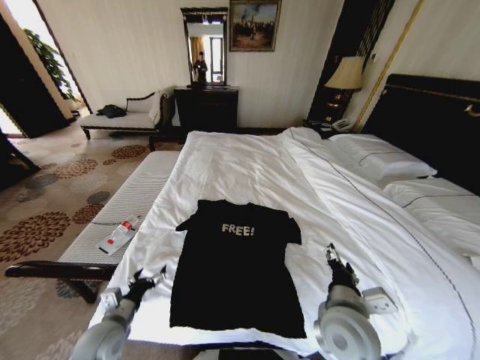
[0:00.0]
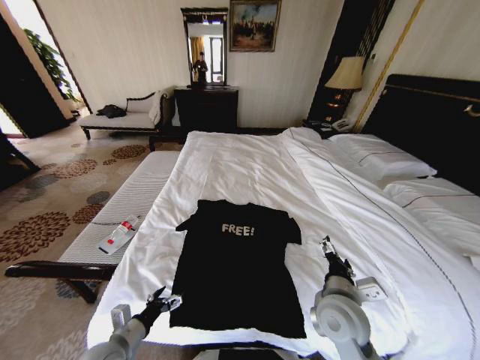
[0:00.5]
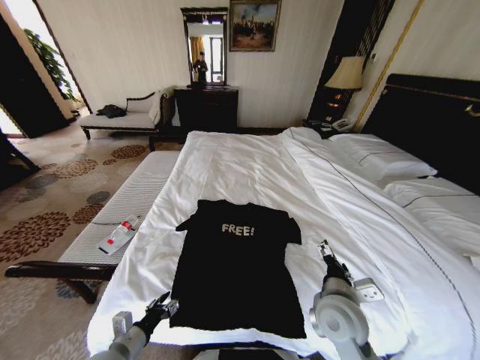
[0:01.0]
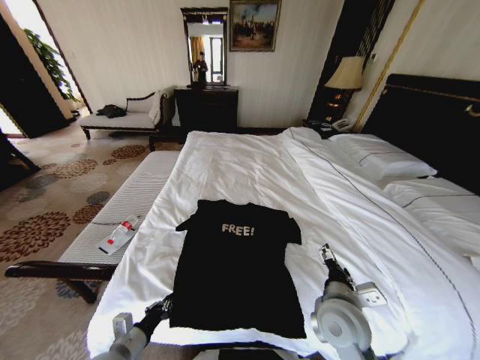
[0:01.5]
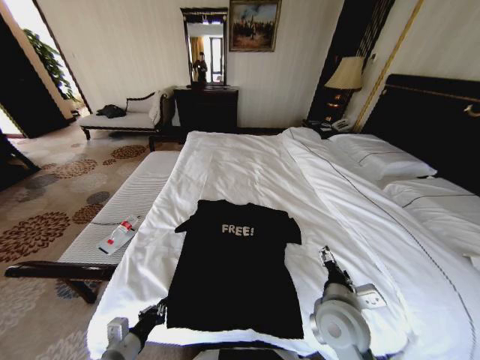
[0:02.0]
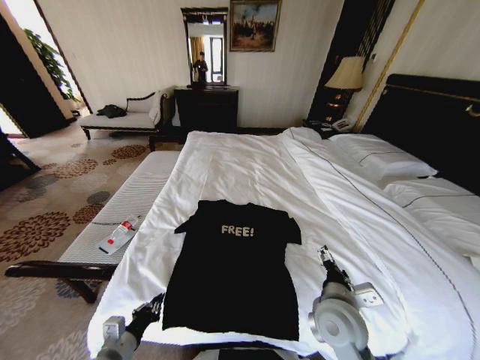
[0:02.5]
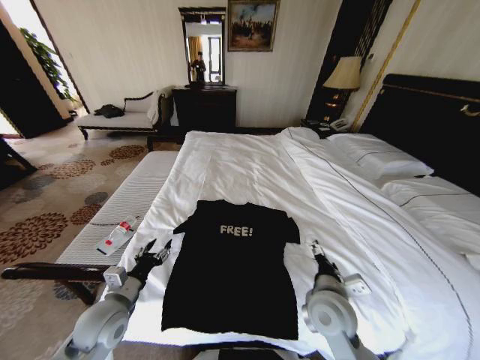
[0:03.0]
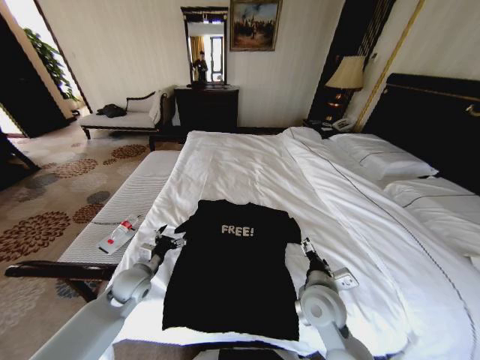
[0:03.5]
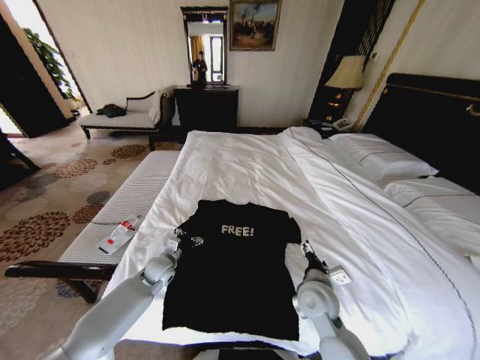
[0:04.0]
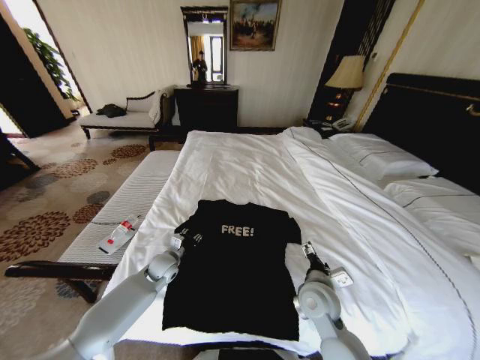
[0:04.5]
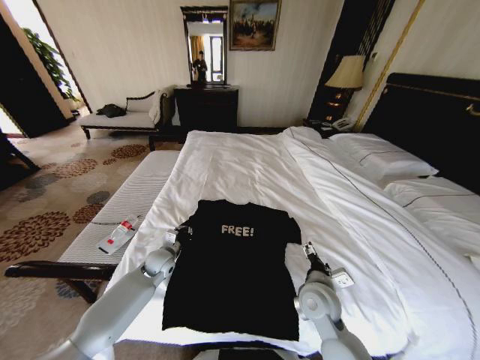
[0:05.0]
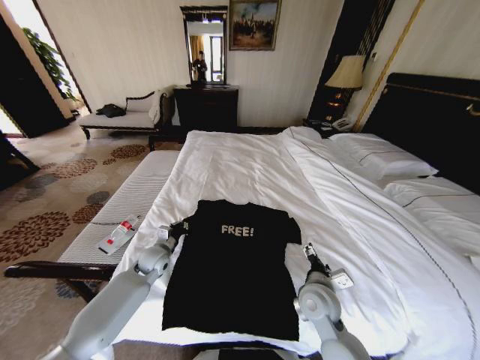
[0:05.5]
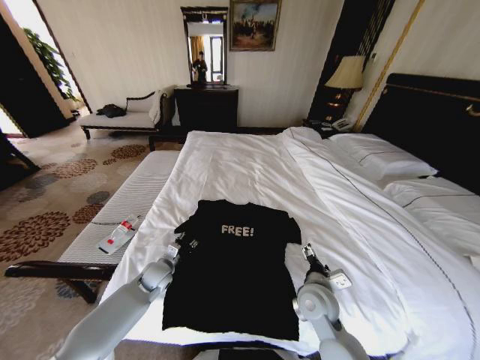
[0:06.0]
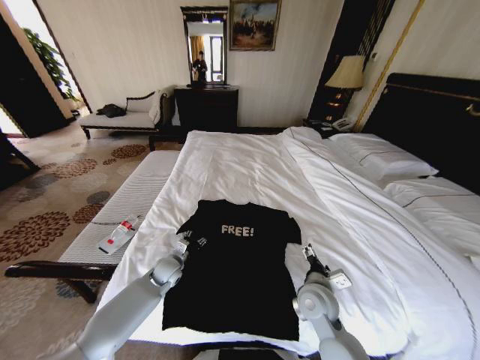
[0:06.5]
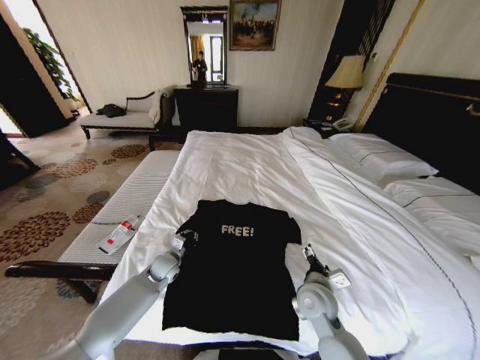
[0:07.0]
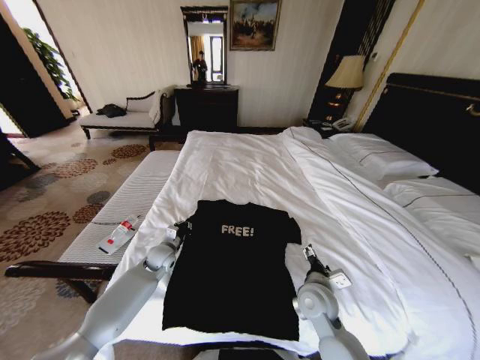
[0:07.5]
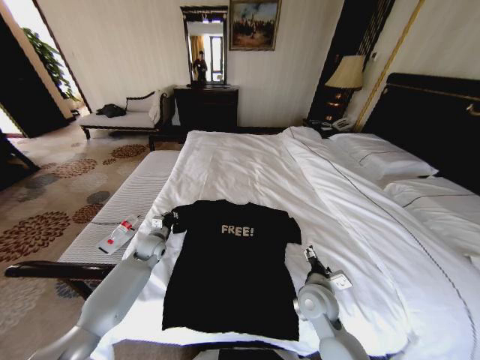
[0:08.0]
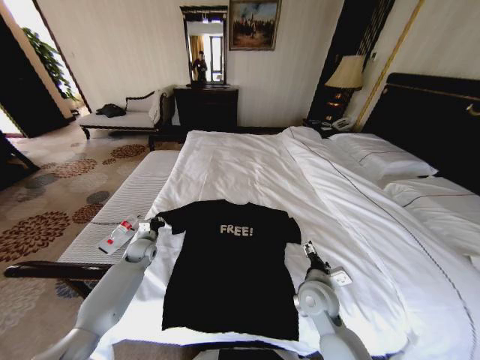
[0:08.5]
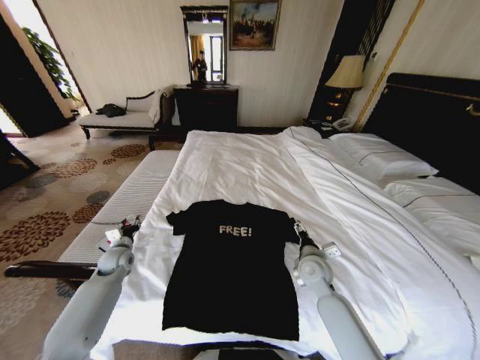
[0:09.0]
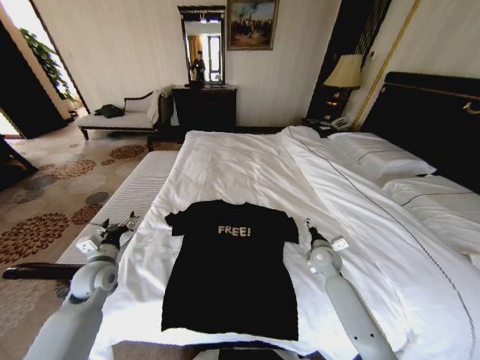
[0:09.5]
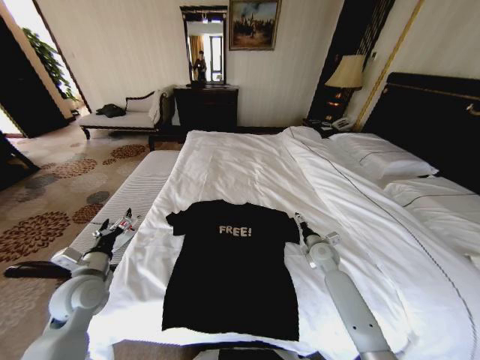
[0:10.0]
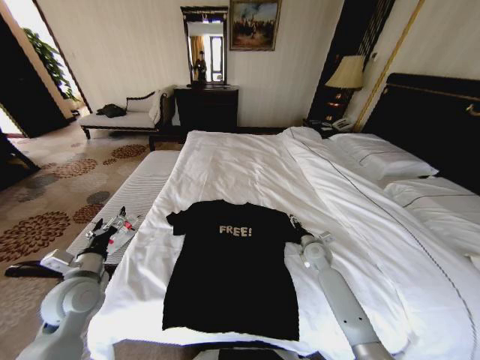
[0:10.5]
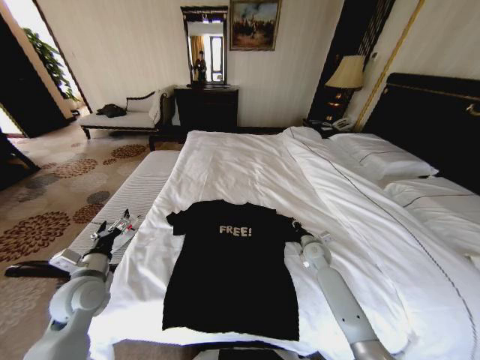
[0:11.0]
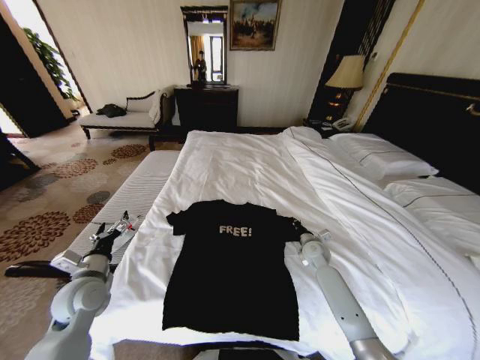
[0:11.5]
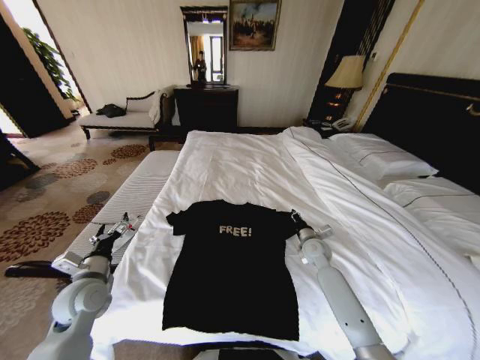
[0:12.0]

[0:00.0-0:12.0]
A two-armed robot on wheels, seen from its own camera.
Task of the whole recording: Fold the clothes on the bed.
0:00.0 to 0:02.0: The left gripper shifts roughly 5 cm backward, and closes its fingers.
0:02.0 to 0:04.0: The left gripper heads forward, covering some 25 cm, and opens its fingers. The right gripper shifts some 5 cm forward.
0:04.0 to 0:06.0: The left gripper closes up.
0:06.0 to 0:08.0: The left gripper moves forward, about 10 cm, and closes.
0:08.0 to 0:10.0: The right gripper travels forward and to the right by approximately 20 cm. The left gripper is displaced backward, upward and to the left by about 20 cm, and opens.
0:10.0 to 0:12.0: The right gripper closes its fingers.

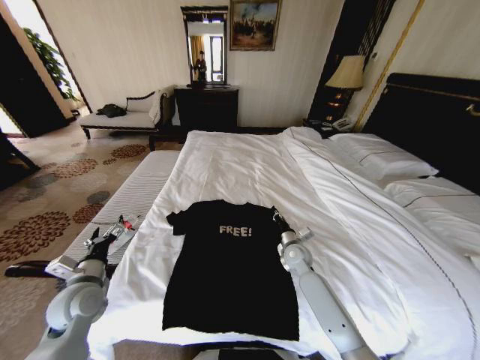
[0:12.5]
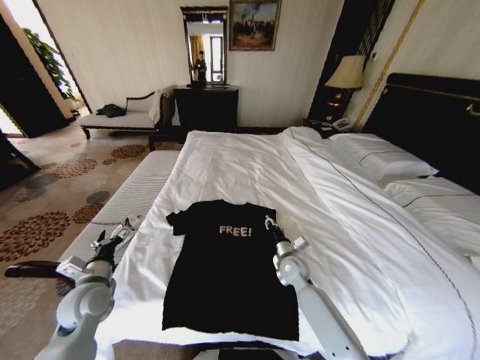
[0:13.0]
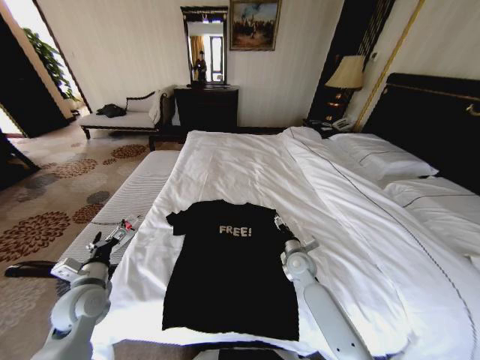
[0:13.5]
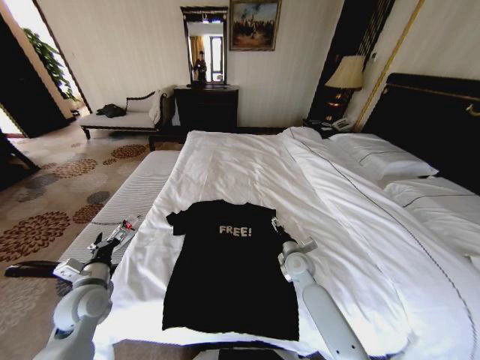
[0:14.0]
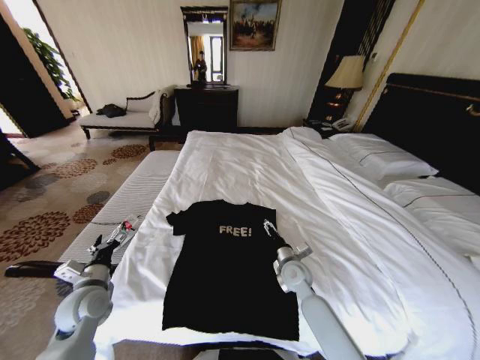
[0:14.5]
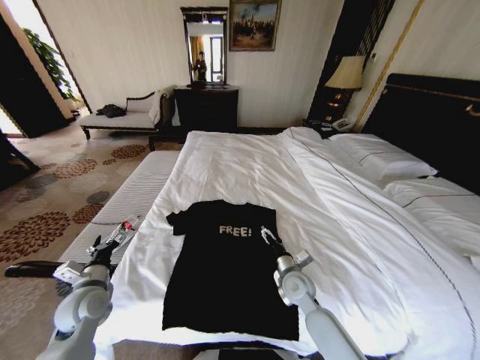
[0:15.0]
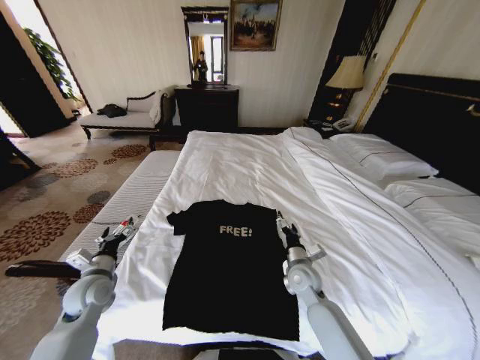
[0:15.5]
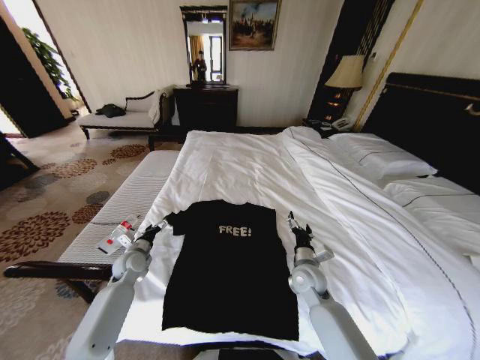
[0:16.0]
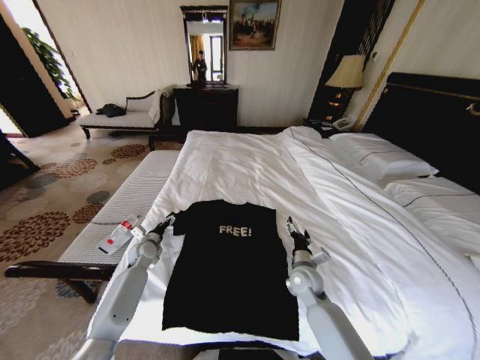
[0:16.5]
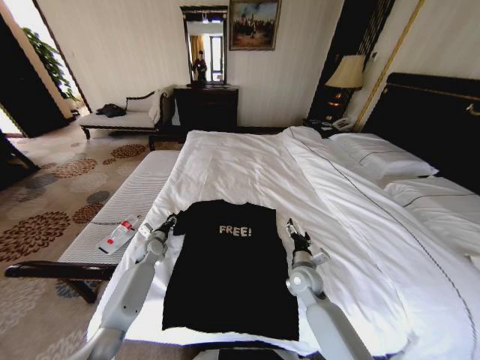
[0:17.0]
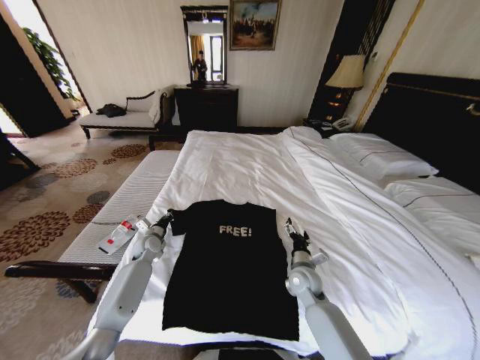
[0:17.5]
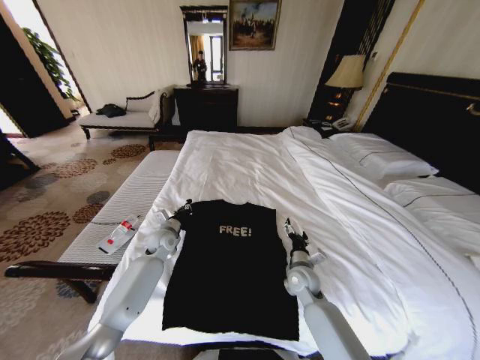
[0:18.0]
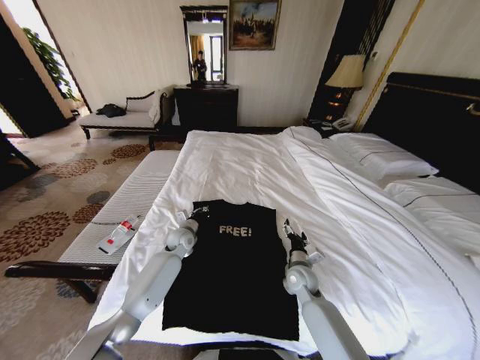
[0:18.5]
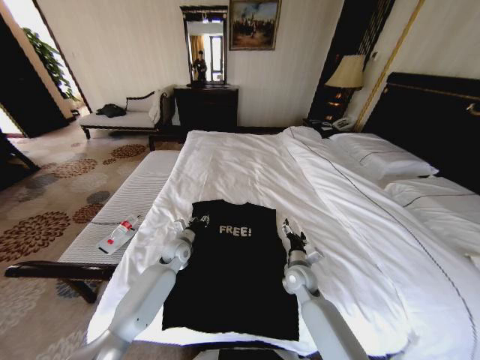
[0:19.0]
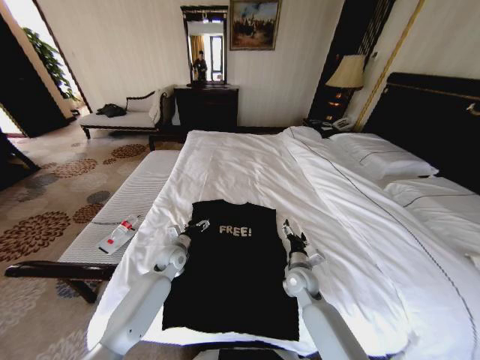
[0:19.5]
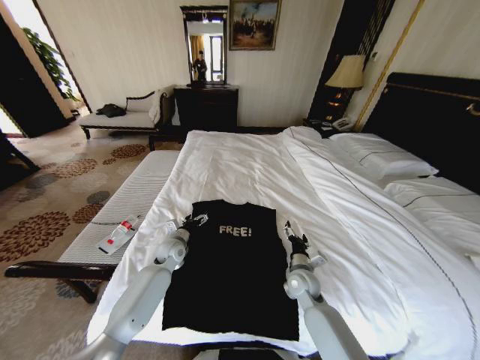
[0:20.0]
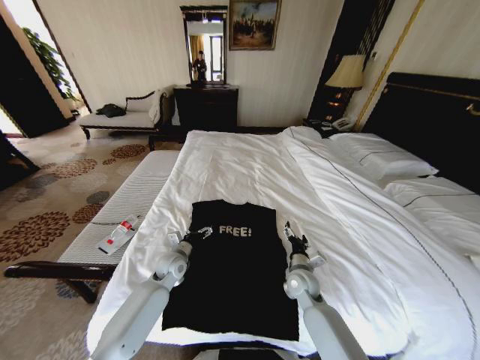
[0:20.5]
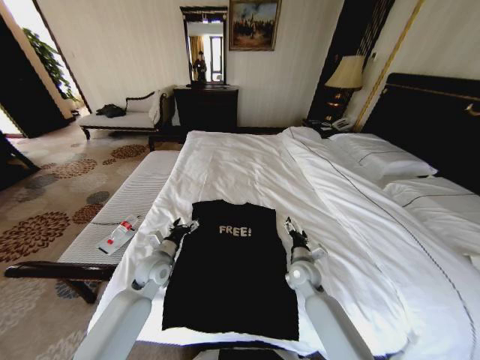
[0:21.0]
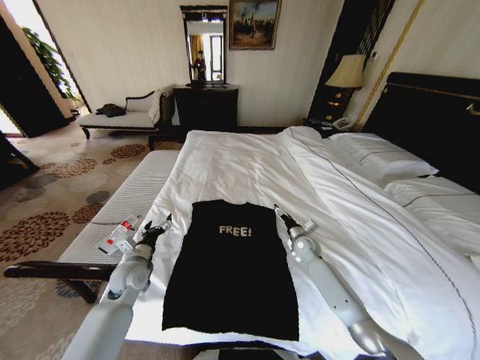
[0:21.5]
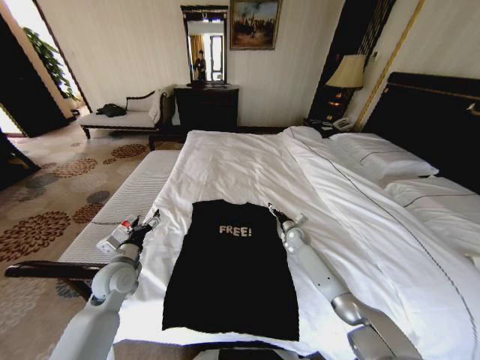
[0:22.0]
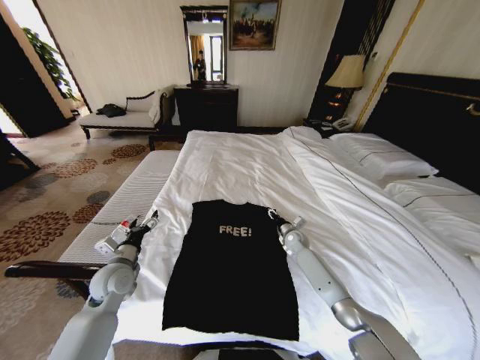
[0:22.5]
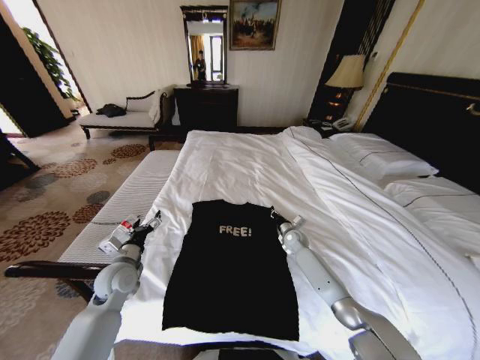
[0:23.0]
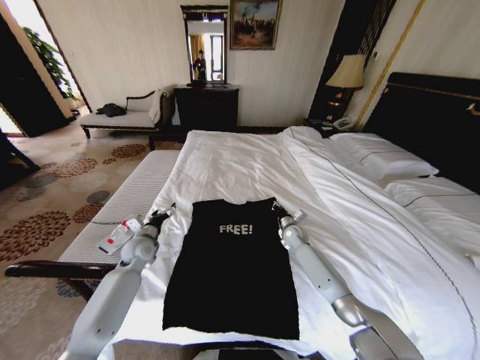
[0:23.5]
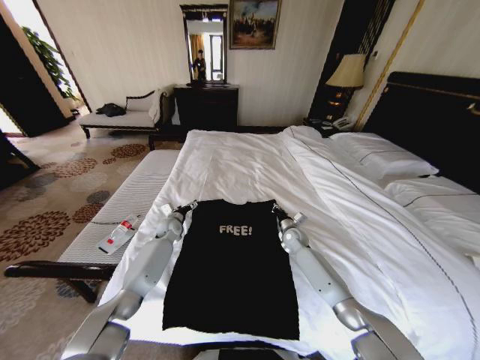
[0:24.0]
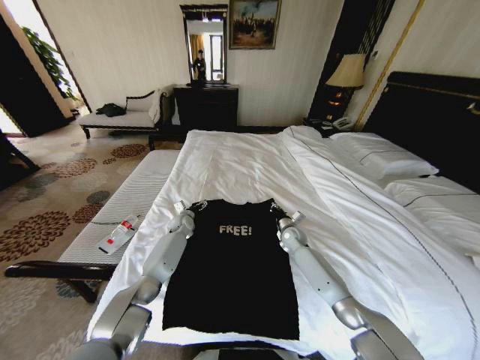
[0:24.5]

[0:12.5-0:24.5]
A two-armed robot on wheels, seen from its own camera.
Task of the whole recording: Fold the clothes on the bed.
0:12.5 to 0:14.5: The right gripper goes roughly 5 cm backward, and opens.
0:14.5 to 0:16.5: The left gripper heads forward and downward, covering approximately 20 cm.
0:16.5 to 0:18.5: The left gripper shifts about 15 cm to the right, and closes its fingers.
0:18.5 to 0:20.5: The left gripper travels backward by approximately 10 cm, and opens.
0:20.5 to 0:22.5: The right gripper heads forward, covering approximately 20 cm, while the left gripper shifts about 15 cm to the left, upward and backward.
0:22.5 to 0:24.5: The left gripper goes approximately 30 cm forward and to the right, while the right gripper closes.

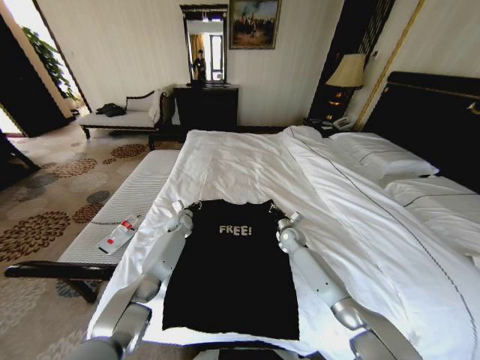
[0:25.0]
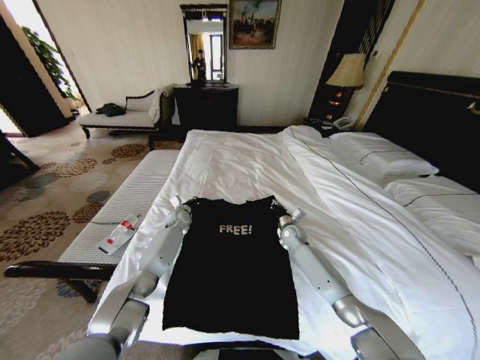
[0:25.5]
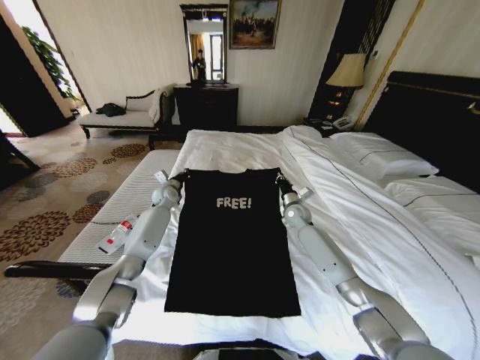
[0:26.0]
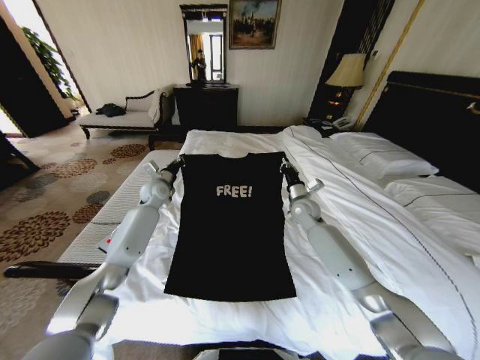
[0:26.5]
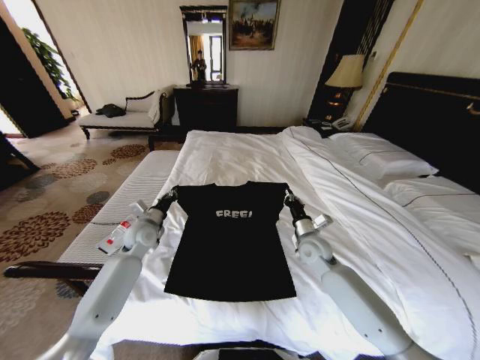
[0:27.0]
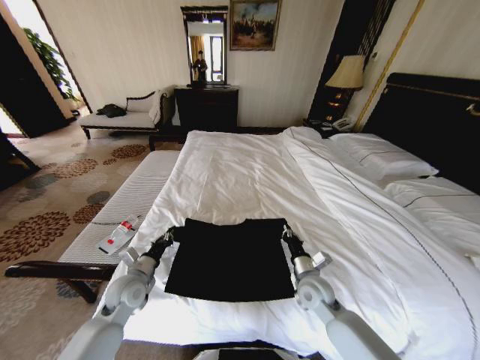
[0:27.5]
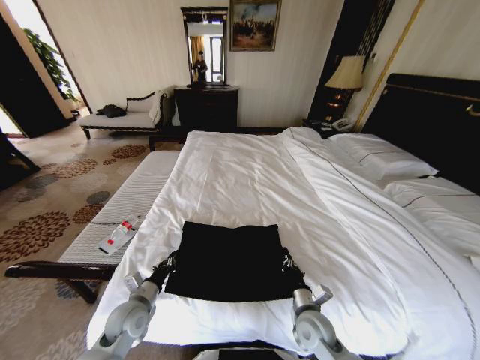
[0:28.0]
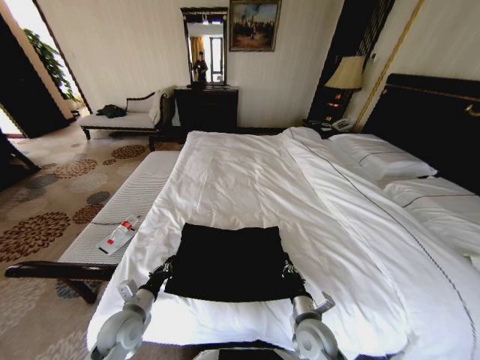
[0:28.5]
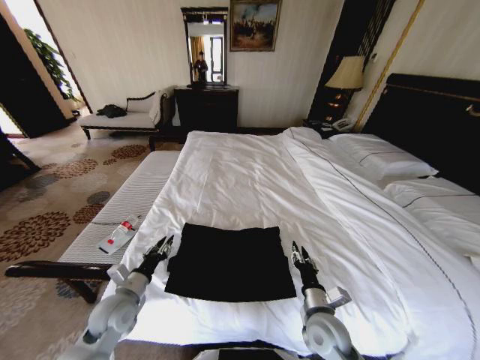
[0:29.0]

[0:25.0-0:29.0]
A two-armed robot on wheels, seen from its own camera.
Task of the whole recording: Fold the clothes on the bed.
0:25.0 to 0:27.0: The left gripper moves backward, upward and to the left, approximately 20 cm, and closes, while the right gripper is displaced backward and upward by roughly 15 cm.
0:27.0 to 0:29.0: Both grippers travel together backward, some 20 cm. The right gripper opens up, while the left gripper opens.
